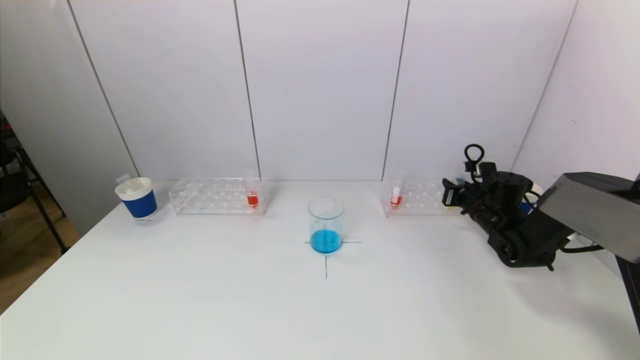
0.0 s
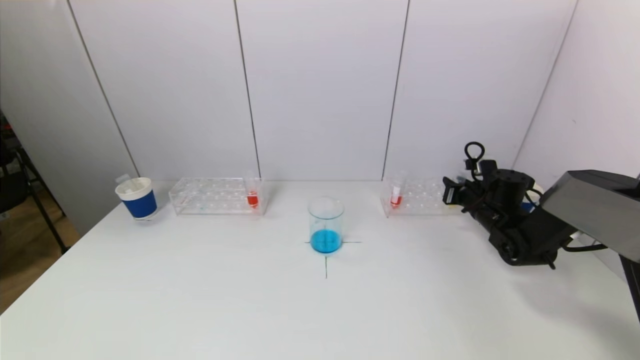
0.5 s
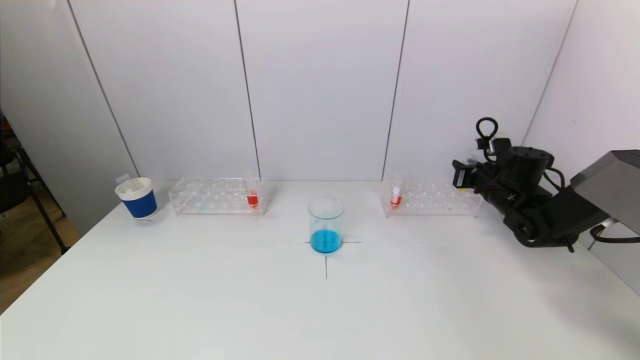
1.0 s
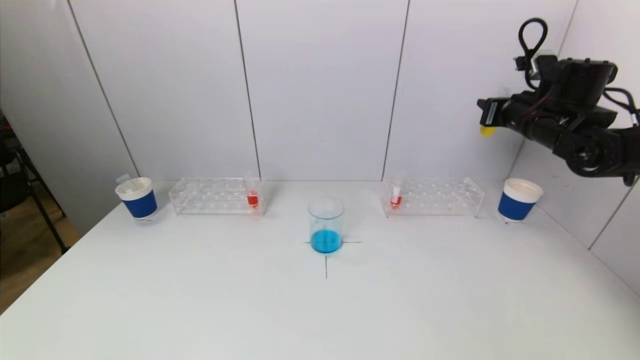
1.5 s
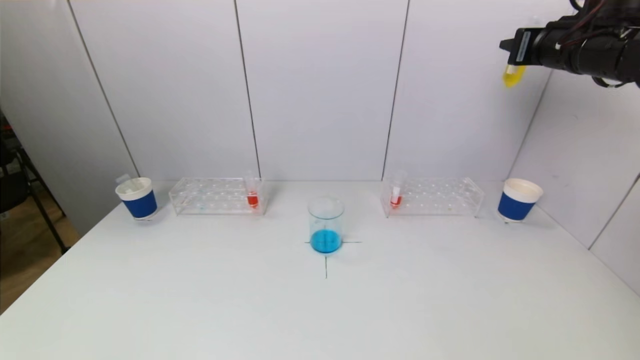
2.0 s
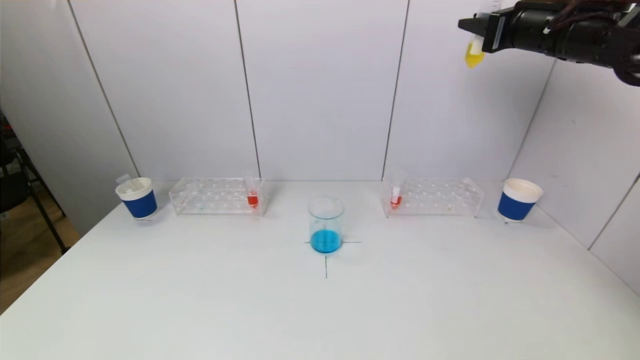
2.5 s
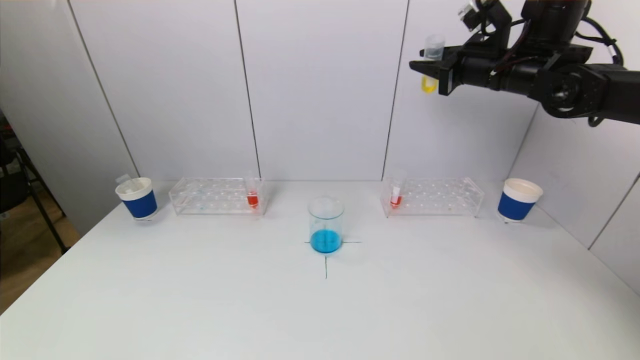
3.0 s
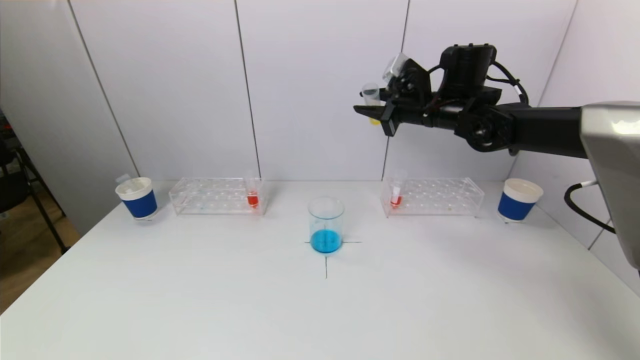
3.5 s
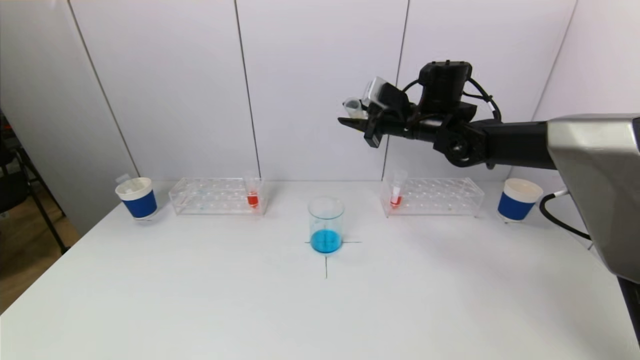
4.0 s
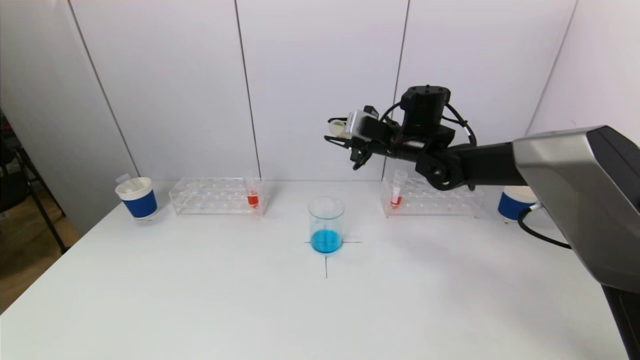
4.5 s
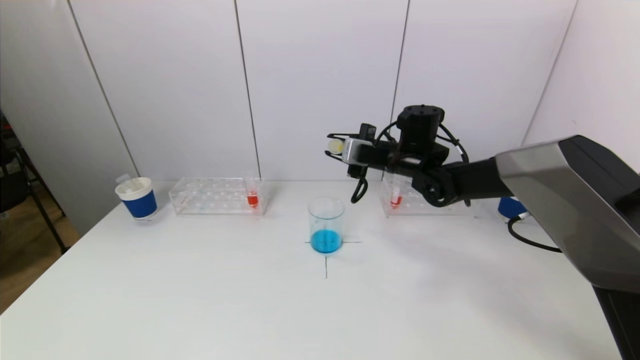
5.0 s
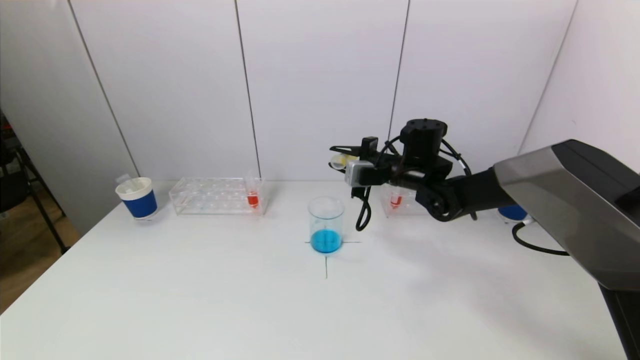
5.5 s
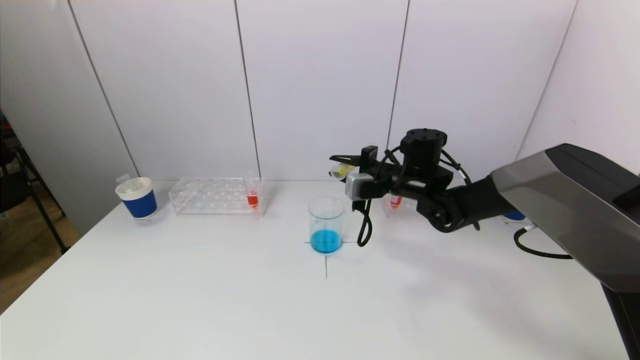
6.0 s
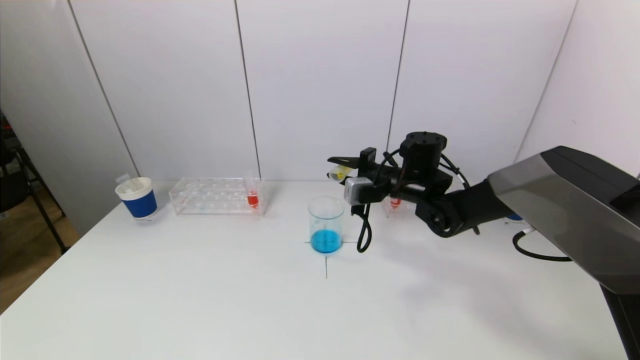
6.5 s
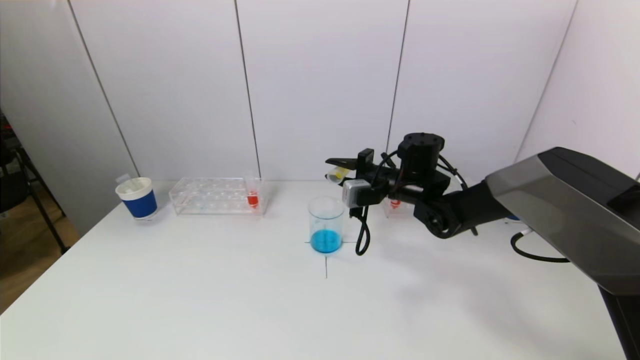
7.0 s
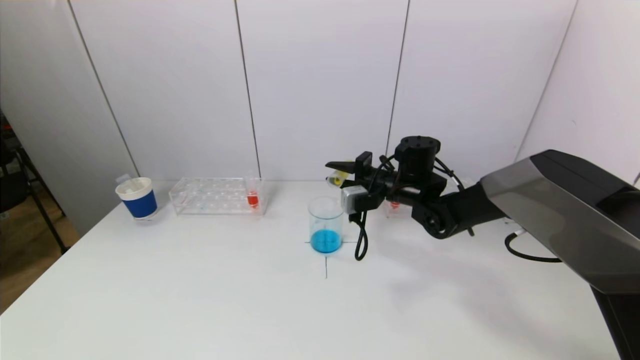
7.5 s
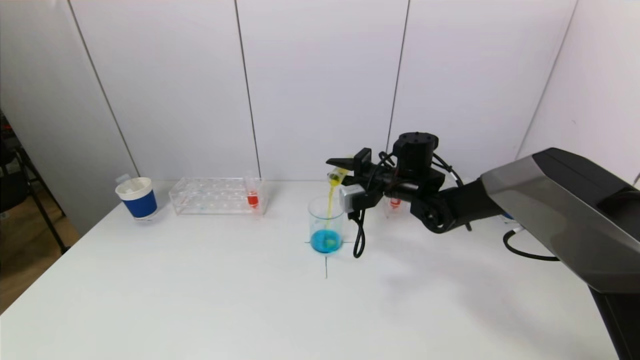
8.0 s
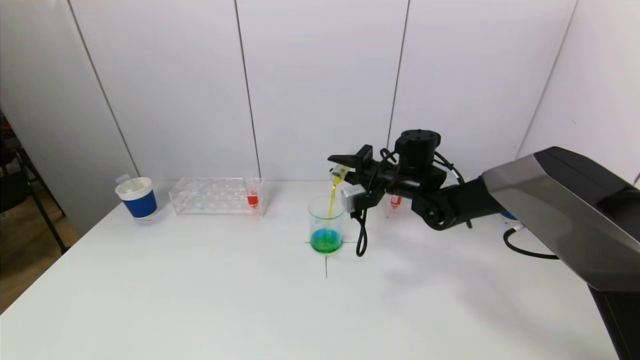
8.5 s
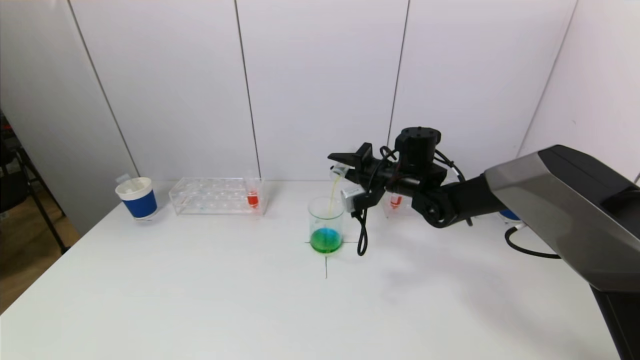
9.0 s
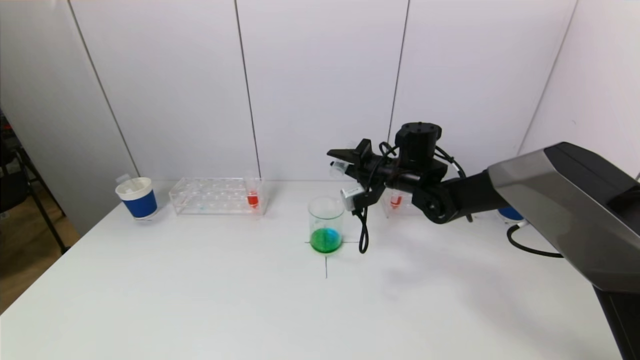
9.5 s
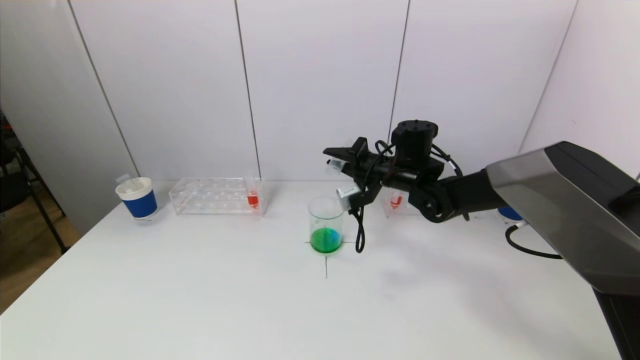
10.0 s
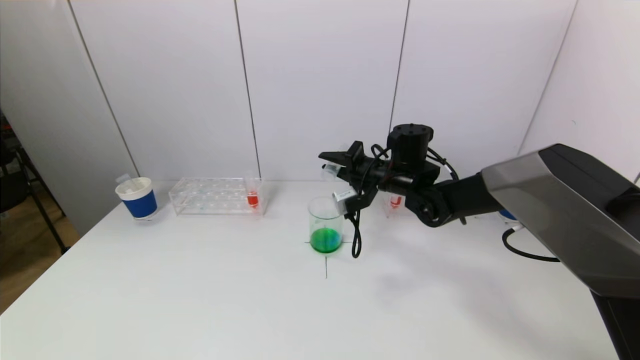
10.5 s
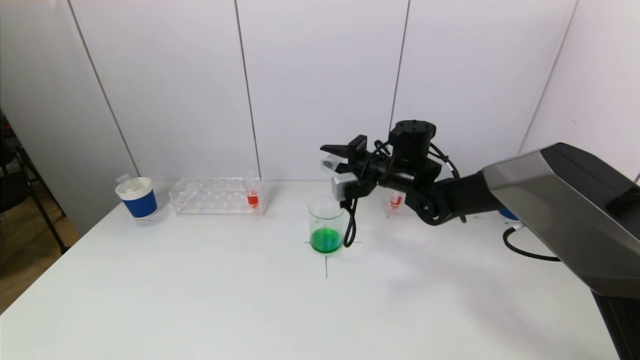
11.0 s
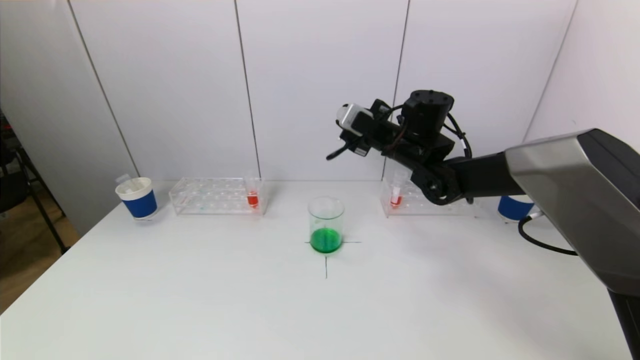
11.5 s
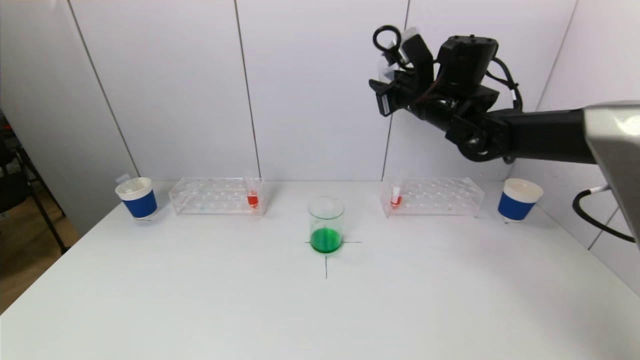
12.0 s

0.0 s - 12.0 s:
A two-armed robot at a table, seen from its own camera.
Task of the whole recording: pick up a test tube with pigment on left test tube rack and a test tube with pigment on right test tube rack by grippers and pour them into the beaker.
Step, 0.0 s - 9.5 s: Pour the yellow reagent into the graduated cylinder with the right gripper.
0.0 s - 2.0 s: The right gripper heads upward, covering some 30 cm.
2.0 s - 4.0 s: The right gripper shifts approximately 20 cm to the left, downward and forward.
4.0 s - 6.0 s: The right gripper shifts about 10 cm downward.
6.0 s - 8.0 s: The grippers make only small movements.
8.0 s - 10.0 s: The grippers make only small movements.
10.0 s - 12.0 s: The right gripper travels upward by about 15 cm.

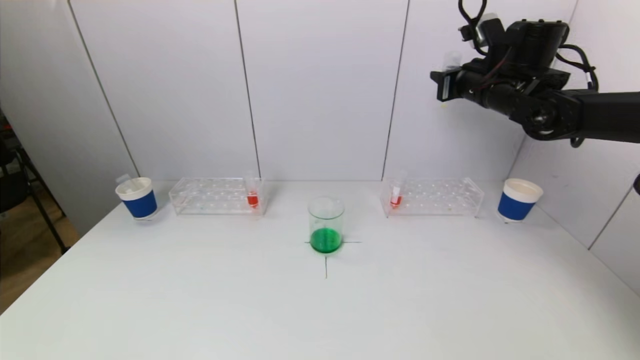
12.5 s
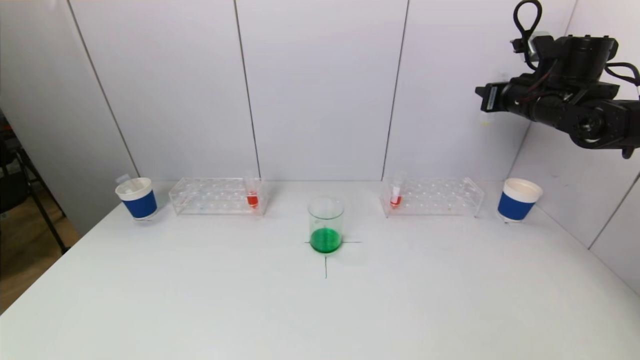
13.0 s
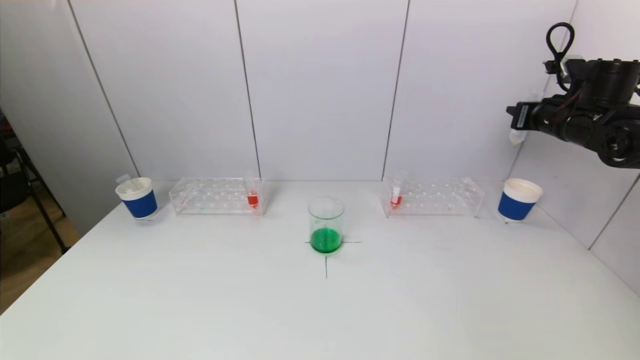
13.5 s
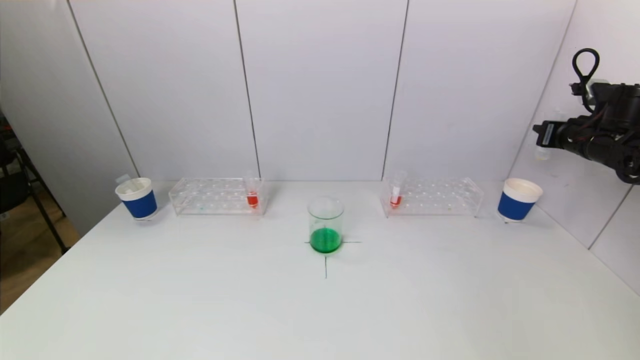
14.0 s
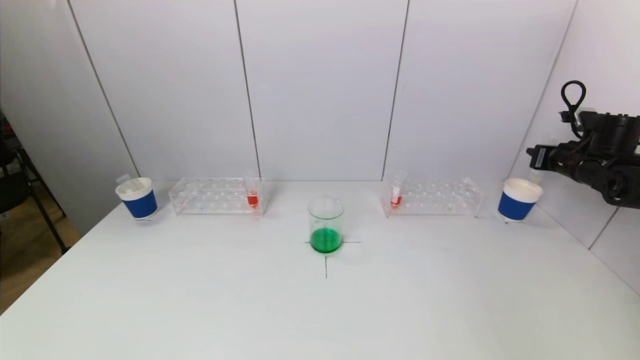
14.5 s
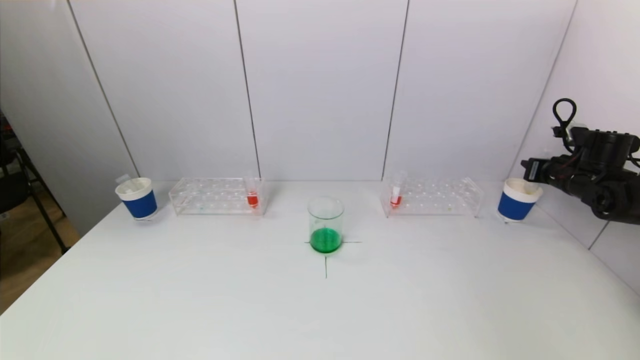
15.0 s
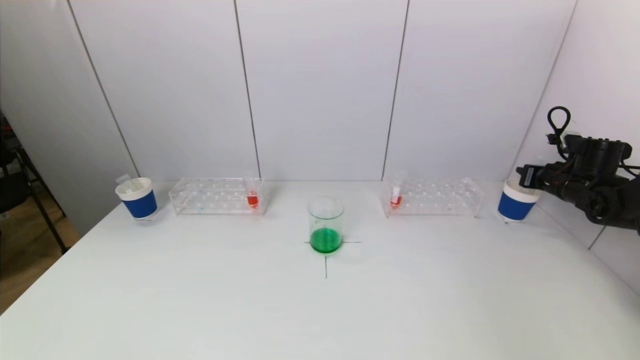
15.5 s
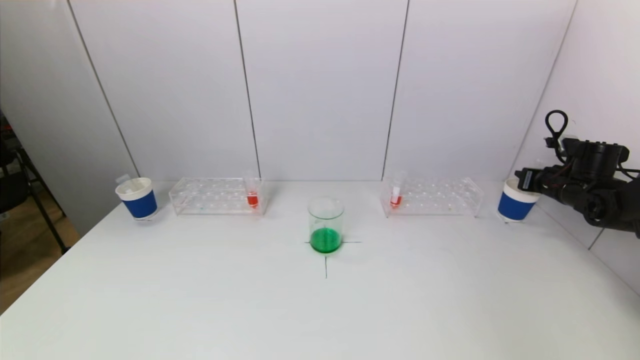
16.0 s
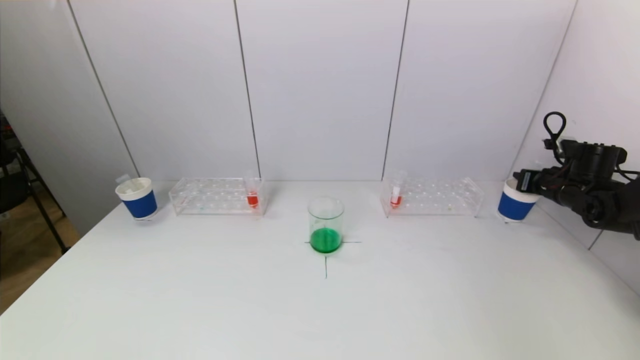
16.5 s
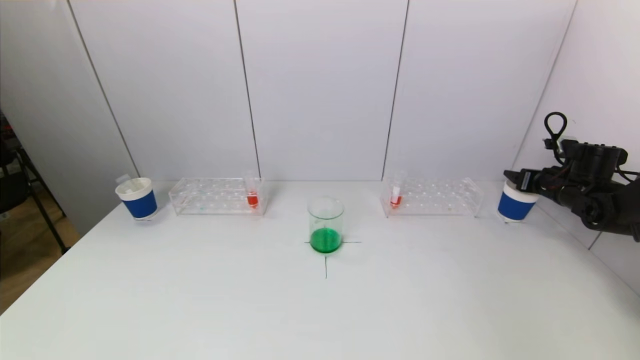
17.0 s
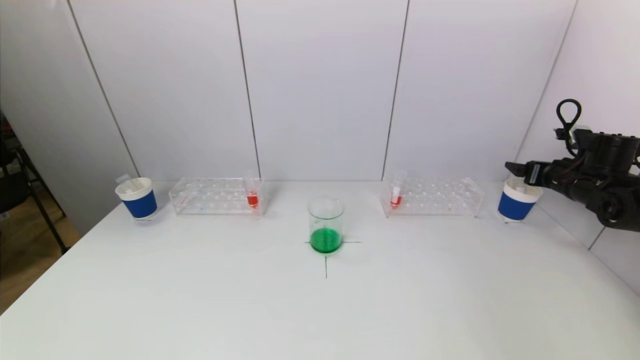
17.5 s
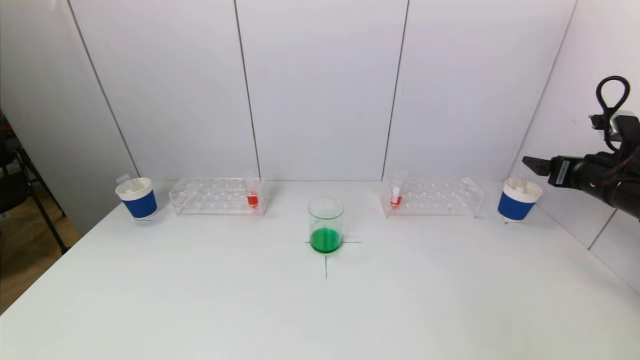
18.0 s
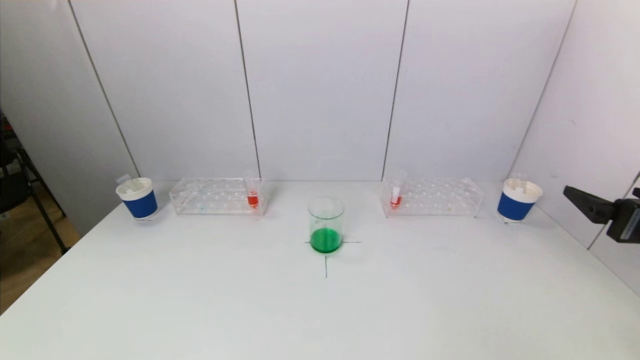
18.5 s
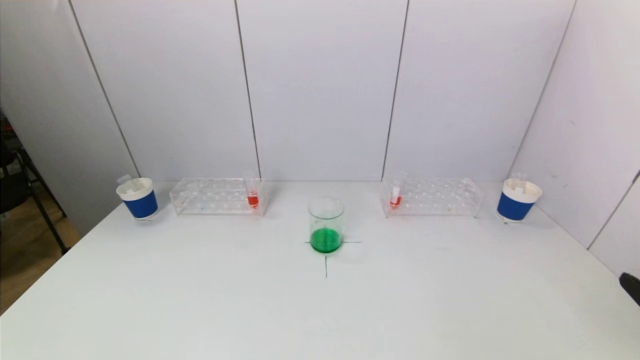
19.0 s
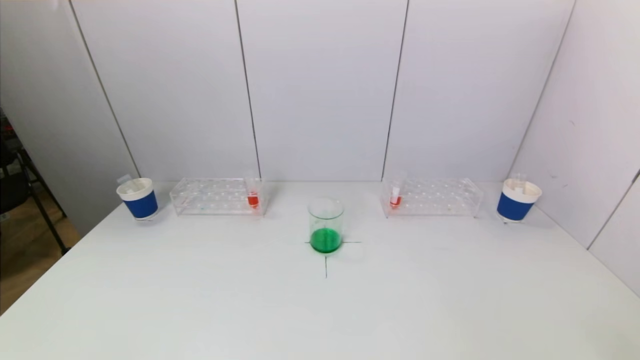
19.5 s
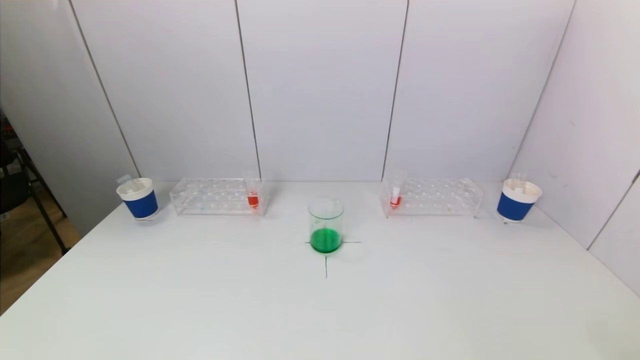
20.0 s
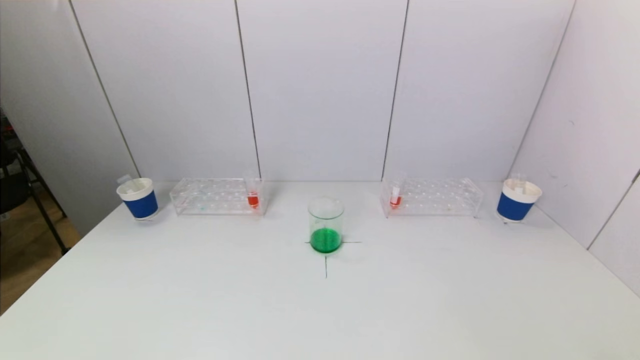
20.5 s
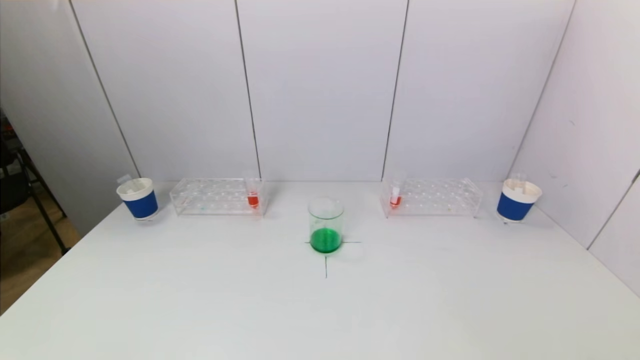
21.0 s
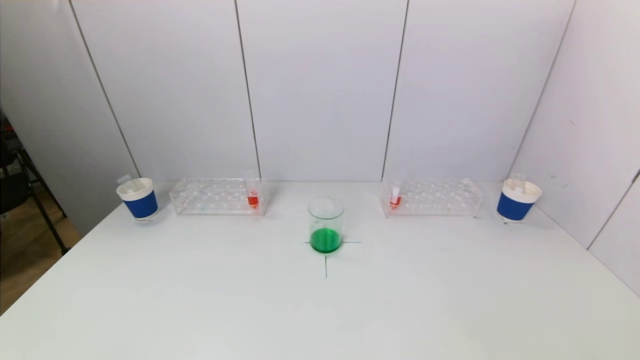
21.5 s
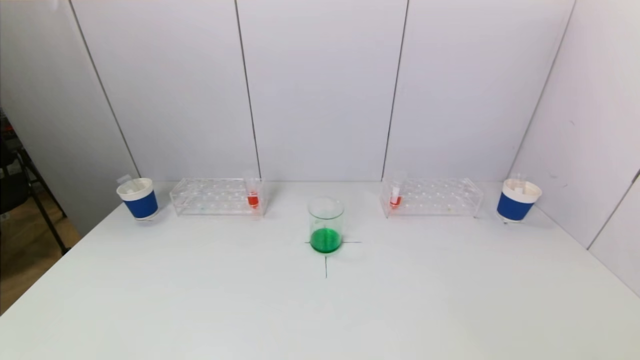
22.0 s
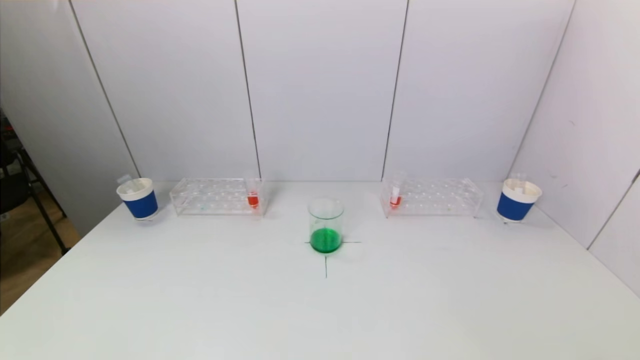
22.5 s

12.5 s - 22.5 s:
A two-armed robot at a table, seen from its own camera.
Task of the whole recording: pick up a test tube with pigment on left test tube rack and a test tube with pigment on right test tube rack by grippers and pour them into the beaker.
Step, 12.5 s - 17.5 s: Place the test tube into the paper cup with the right gripper.
12.5 s - 14.5 s: The right gripper heads to the right and downward, covering roughly 25 cm.
14.5 s - 16.5 s: The right gripper is displaced downward by roughly 5 cm.
16.5 s - 18.5 s: The right gripper travels backward by about 25 cm, and opens its fingers.
18.5 s - 20.5 s: The right gripper travels backward and downward by some 20 cm.
20.5 s - 22.5 s: The two grippers keep their place.
